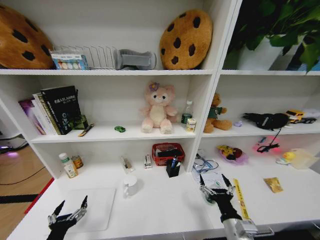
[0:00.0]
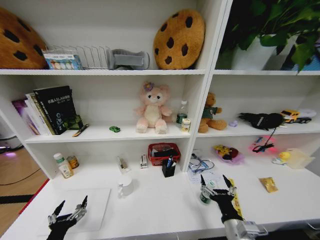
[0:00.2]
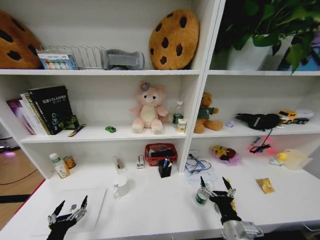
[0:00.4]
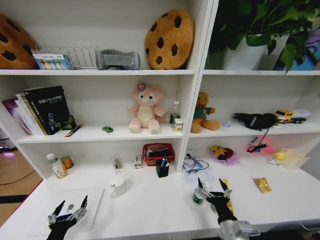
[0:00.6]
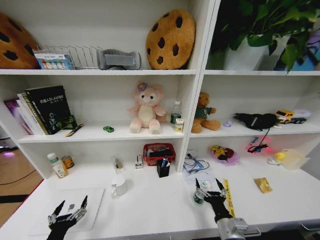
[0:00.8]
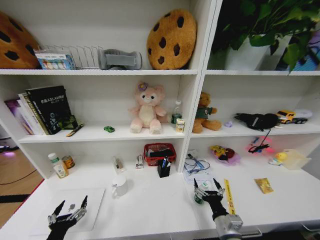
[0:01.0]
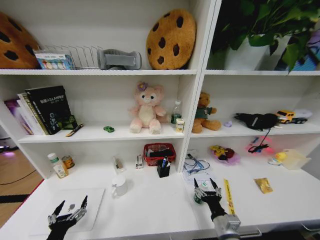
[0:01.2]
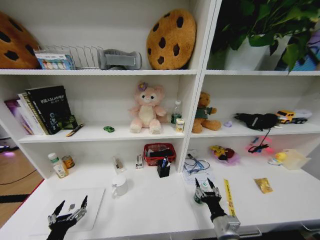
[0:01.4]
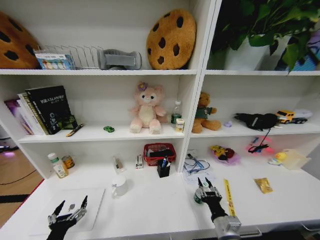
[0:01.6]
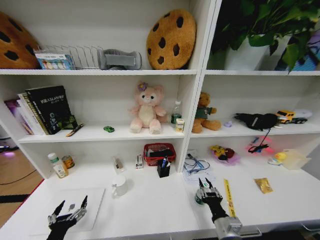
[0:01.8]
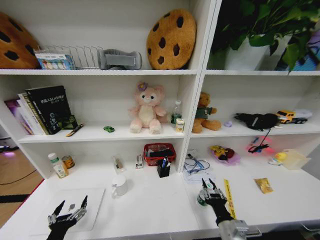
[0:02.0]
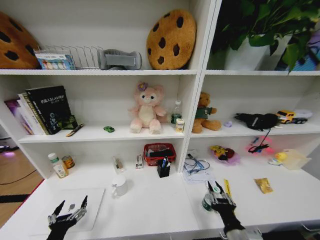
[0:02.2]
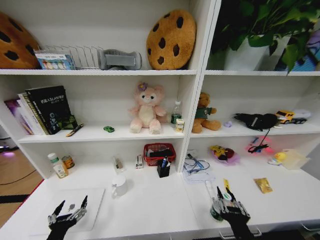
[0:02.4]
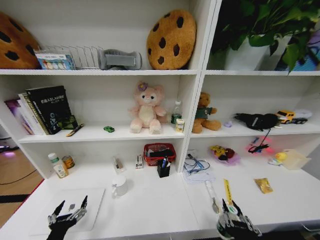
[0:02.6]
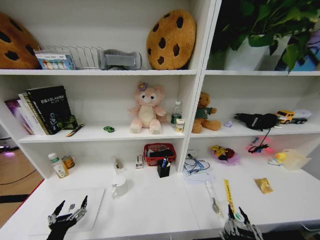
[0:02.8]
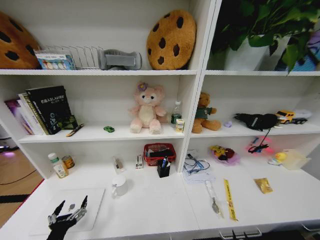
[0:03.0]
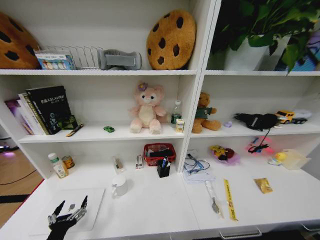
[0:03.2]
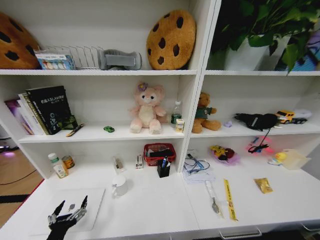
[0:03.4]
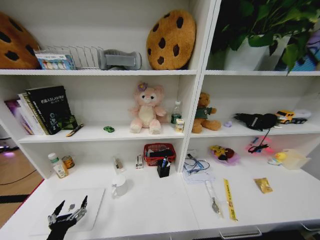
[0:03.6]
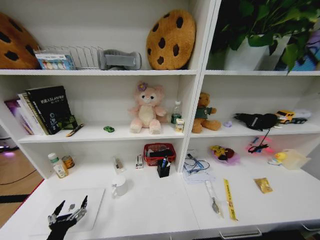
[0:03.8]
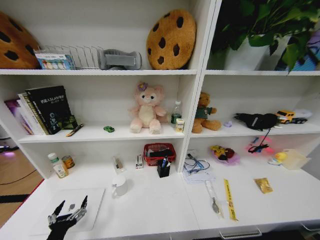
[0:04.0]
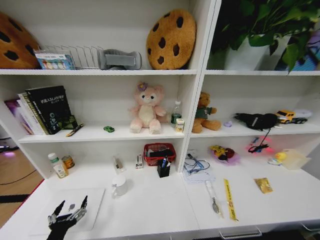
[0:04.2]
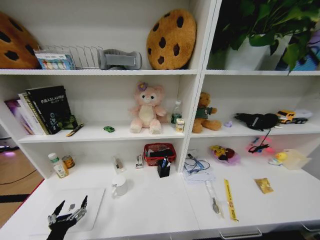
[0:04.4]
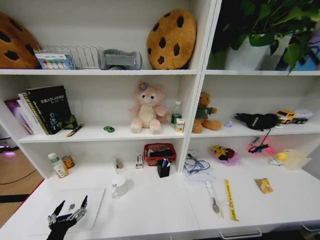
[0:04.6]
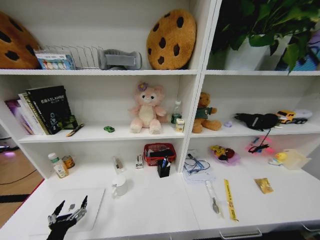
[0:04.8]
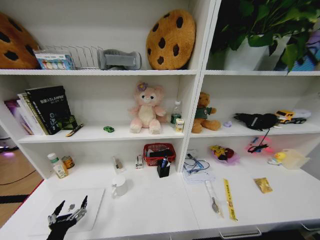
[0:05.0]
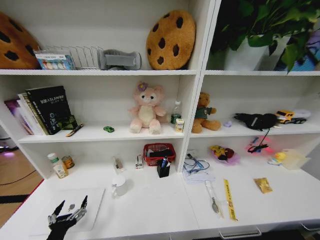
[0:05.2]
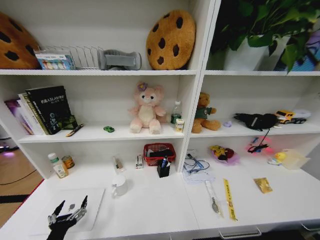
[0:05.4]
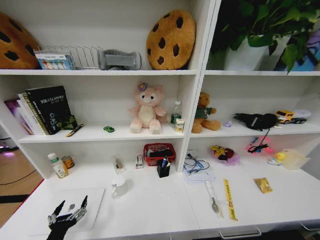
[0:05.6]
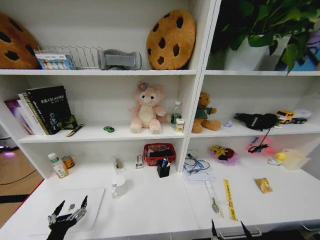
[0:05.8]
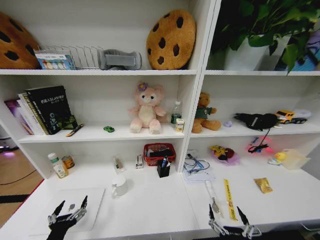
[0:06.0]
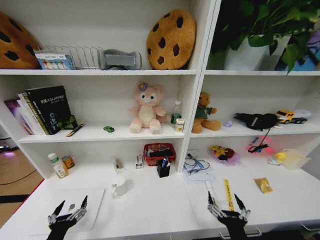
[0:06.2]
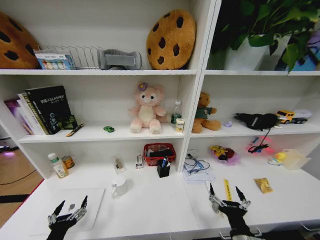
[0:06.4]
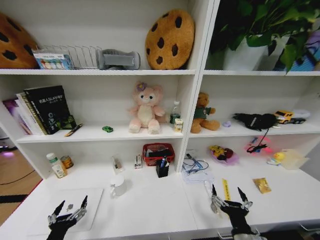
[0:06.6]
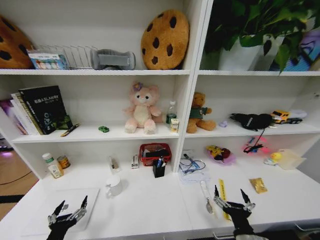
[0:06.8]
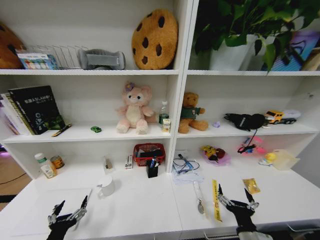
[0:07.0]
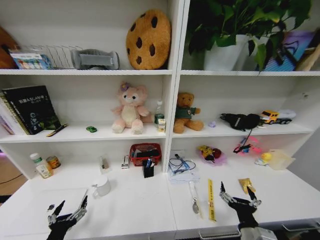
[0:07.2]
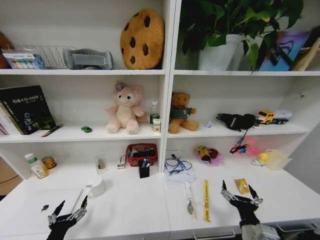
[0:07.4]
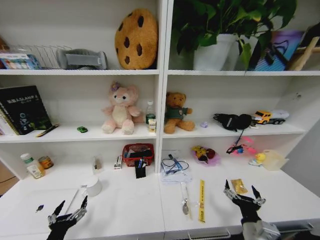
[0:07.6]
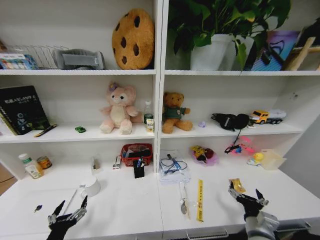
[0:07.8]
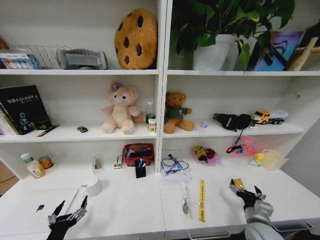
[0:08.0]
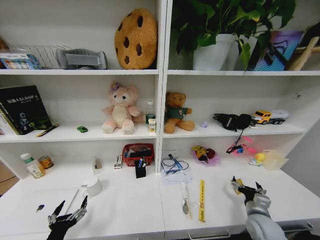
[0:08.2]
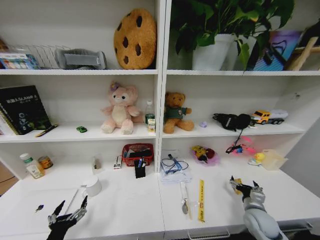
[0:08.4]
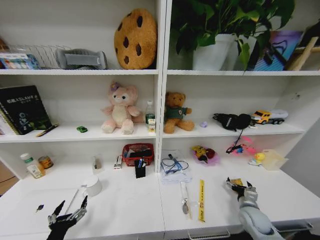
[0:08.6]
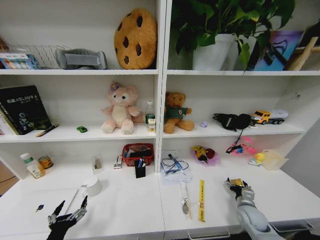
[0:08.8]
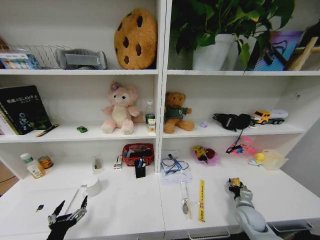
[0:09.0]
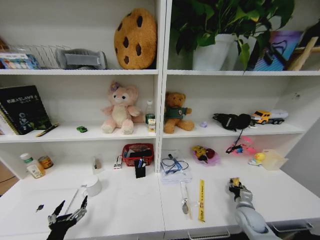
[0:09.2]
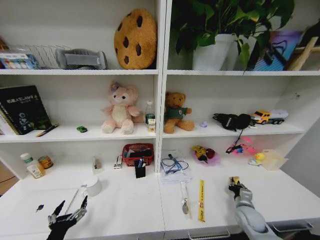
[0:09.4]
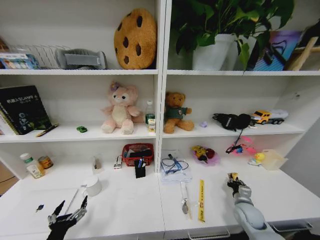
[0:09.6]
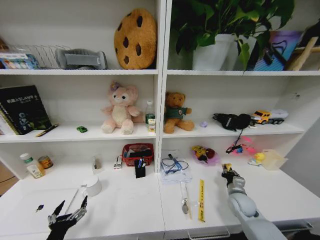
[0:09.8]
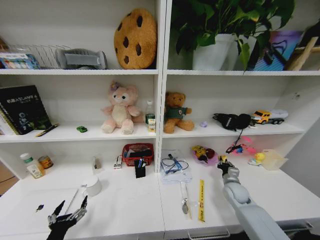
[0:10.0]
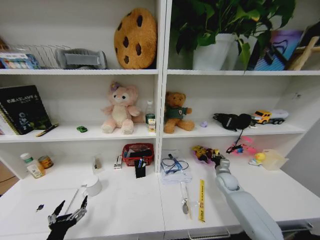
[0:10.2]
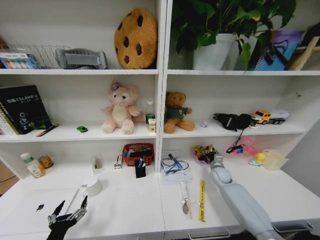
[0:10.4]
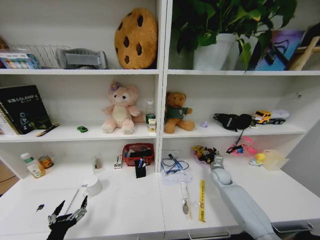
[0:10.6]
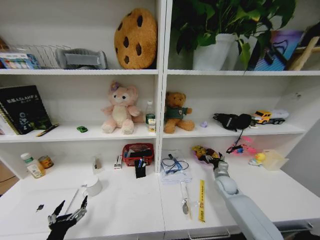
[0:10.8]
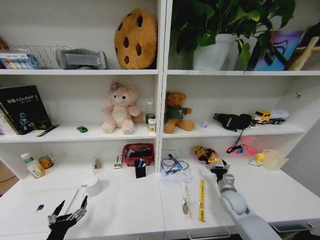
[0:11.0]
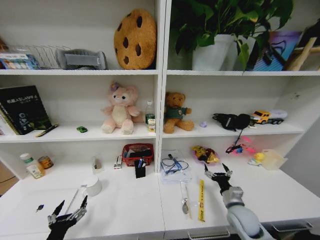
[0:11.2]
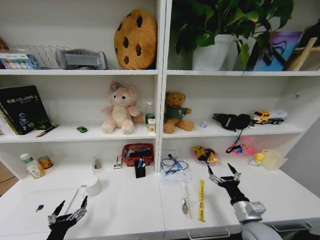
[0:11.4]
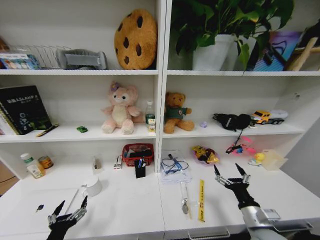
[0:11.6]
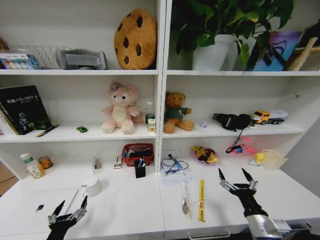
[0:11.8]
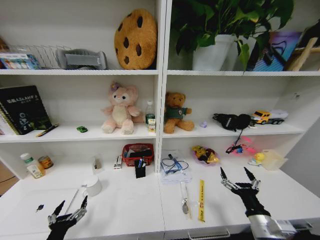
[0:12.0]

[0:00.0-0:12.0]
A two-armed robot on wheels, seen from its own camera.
Task of the whole recording: Organize the objects on the table.
0:00.0 to 0:01.6: The right gripper closes.
0:01.6 to 0:03.0: The right gripper moves backward and upward, approximately 20 cm.
0:04.4 to 0:06.0: The right gripper goes about 35 cm upward, and opens its fingers.
0:06.0 to 0:07.6: The right gripper heads forward and to the right, covering some 15 cm.
0:07.6 to 0:09.0: The right gripper travels forward, to the right and downward by about 20 cm, and closes up.
0:09.0 to 0:10.4: The right gripper moves forward, roughly 20 cm.
0:10.4 to 0:12.0: The right gripper shifts some 30 cm backward, and opens.
